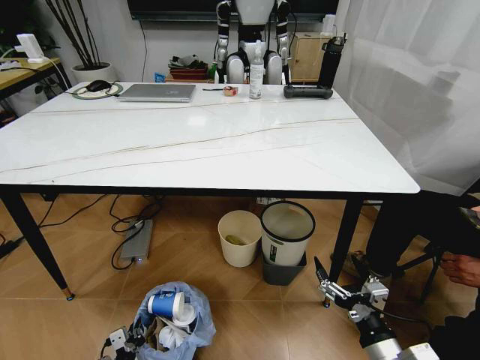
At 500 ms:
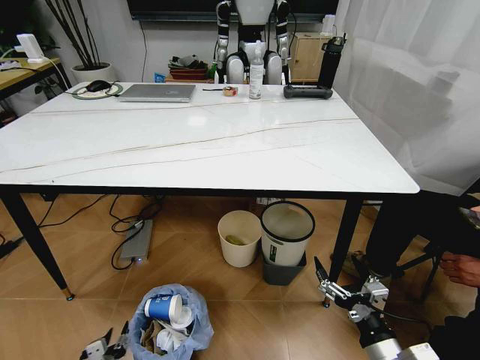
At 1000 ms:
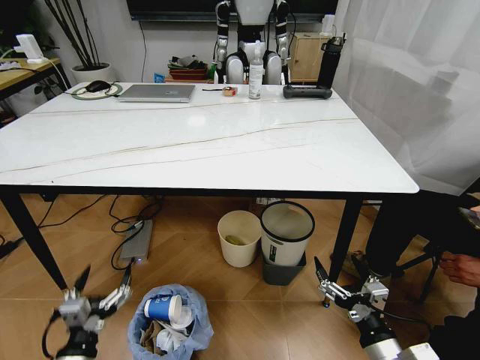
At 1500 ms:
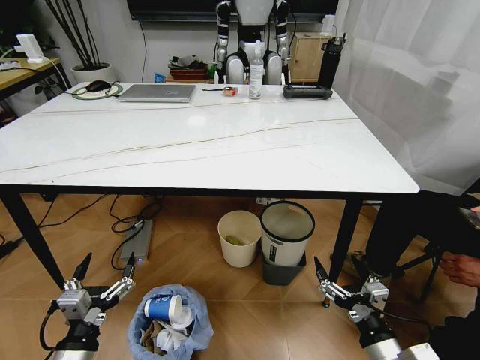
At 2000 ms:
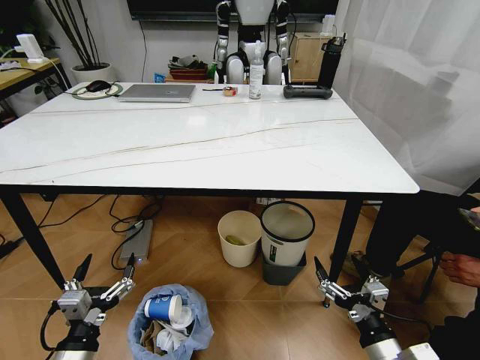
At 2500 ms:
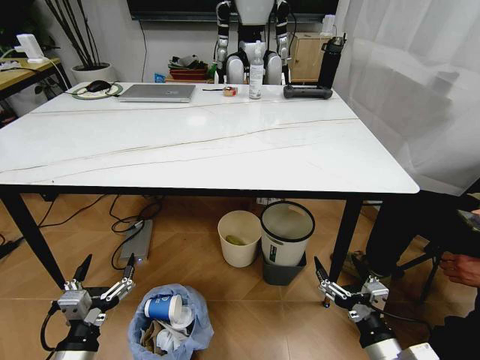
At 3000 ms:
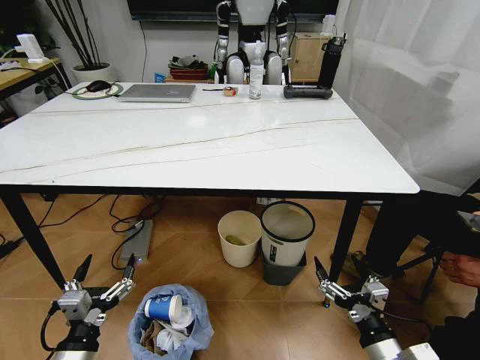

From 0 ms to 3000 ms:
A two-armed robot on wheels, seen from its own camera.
Task of the whole recording: Pick up the trash bin and place the trash from the table into it.
From 0 ms to 1500 ms: The left gripper heads upward, covering some 25 cm, and opens.
From 1500 ms to 3000 ms: Neither gripper changes place.
